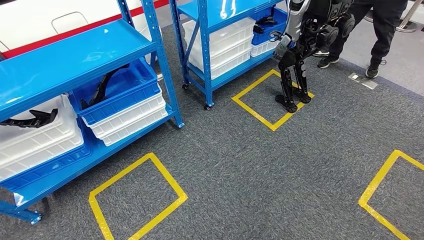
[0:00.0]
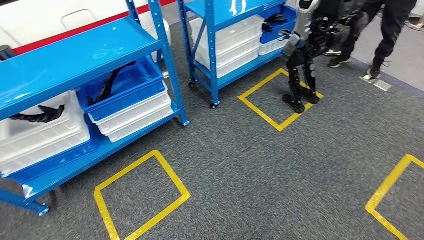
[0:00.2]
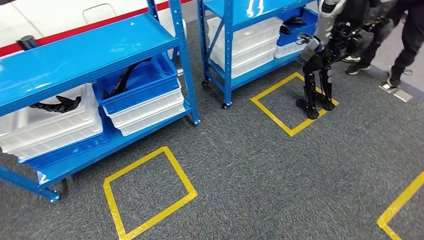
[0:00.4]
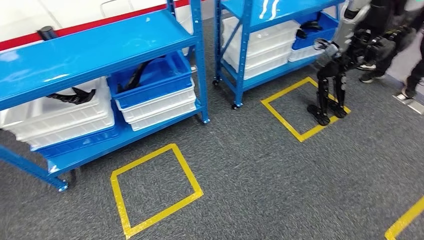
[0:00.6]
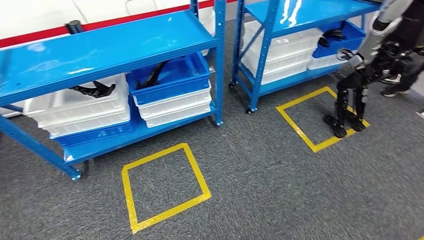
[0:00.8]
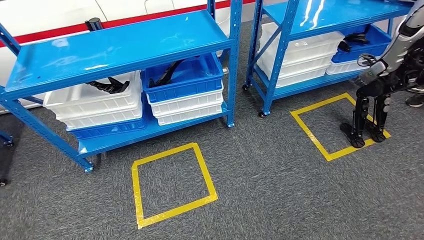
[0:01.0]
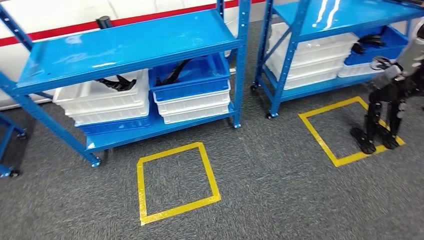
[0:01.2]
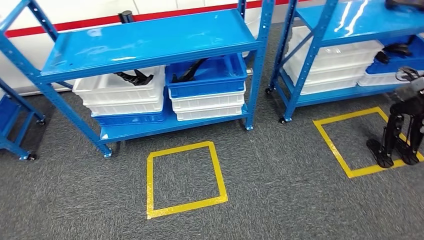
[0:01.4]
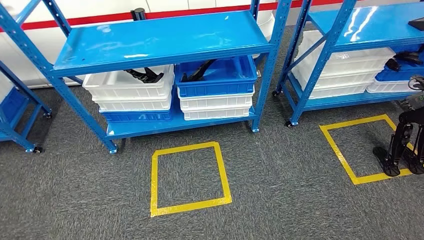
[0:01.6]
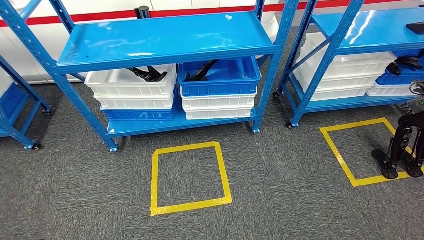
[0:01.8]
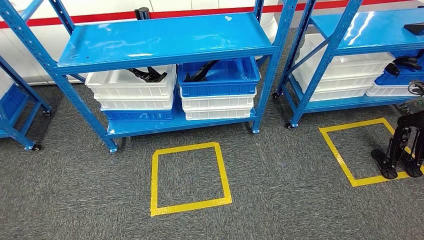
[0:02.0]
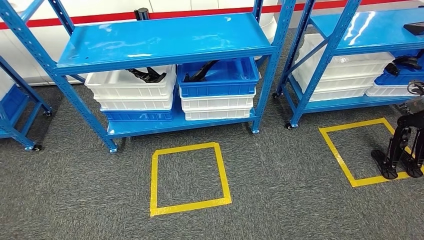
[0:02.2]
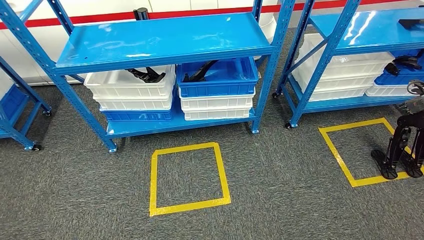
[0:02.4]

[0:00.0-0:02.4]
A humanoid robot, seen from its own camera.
Step, 0:00.0 to 0:02.4: Move to the initial position of the shelf.
